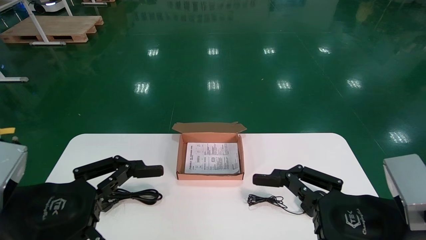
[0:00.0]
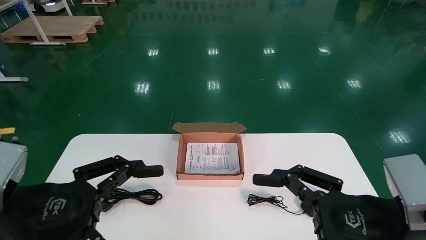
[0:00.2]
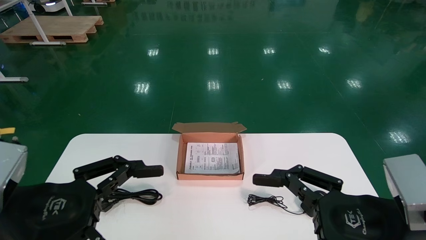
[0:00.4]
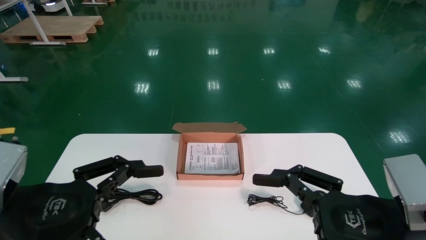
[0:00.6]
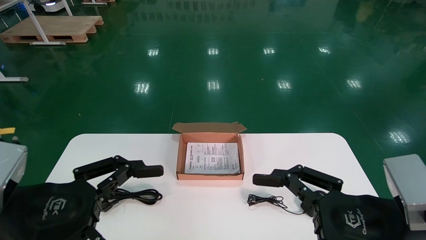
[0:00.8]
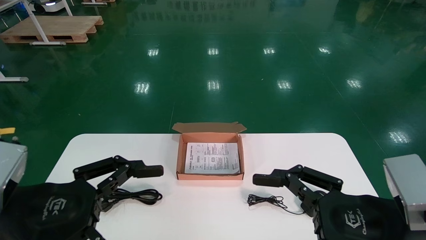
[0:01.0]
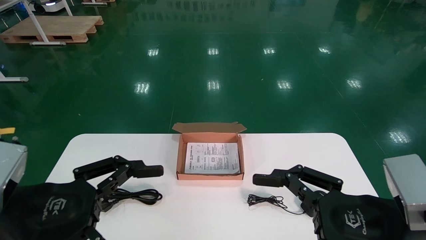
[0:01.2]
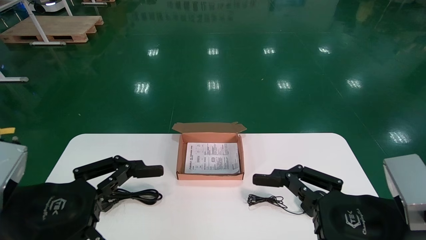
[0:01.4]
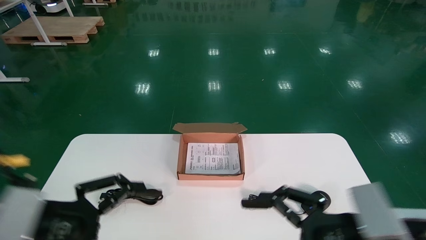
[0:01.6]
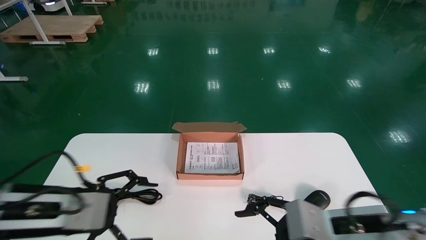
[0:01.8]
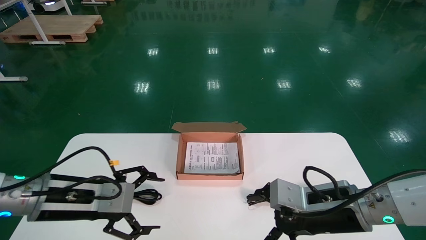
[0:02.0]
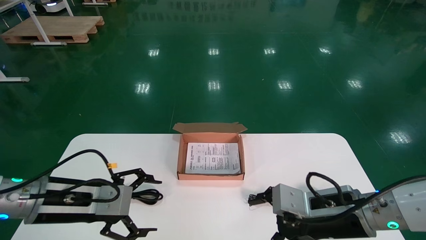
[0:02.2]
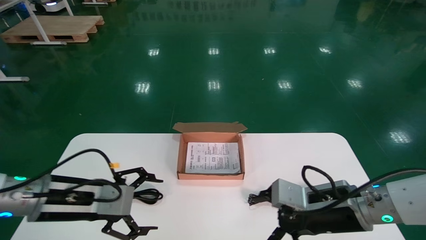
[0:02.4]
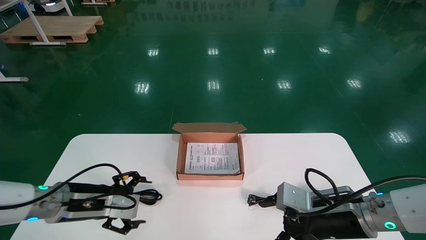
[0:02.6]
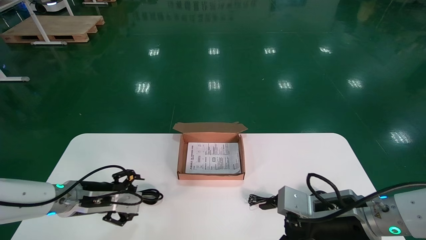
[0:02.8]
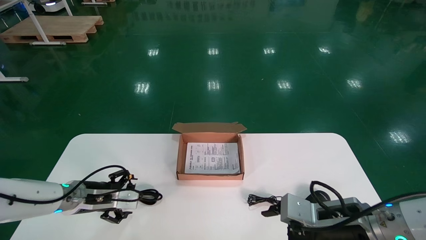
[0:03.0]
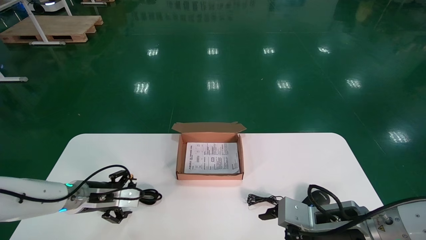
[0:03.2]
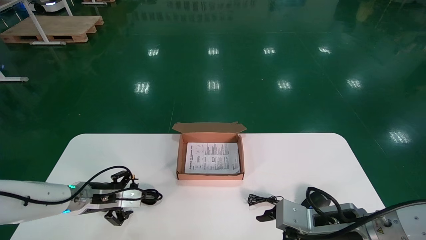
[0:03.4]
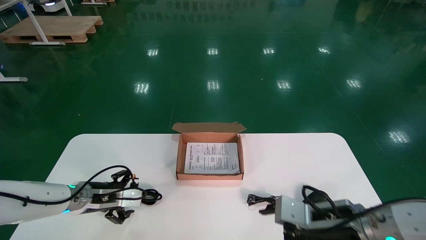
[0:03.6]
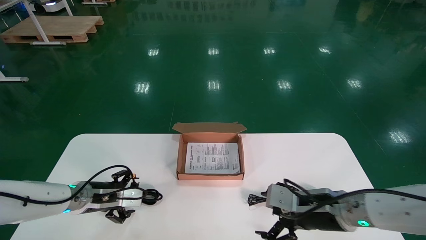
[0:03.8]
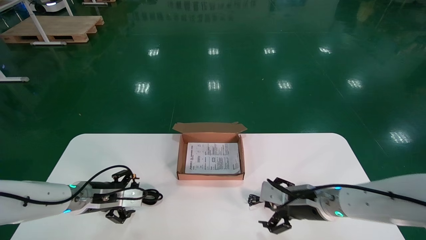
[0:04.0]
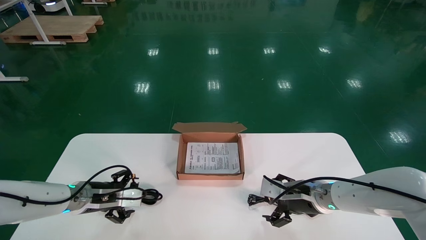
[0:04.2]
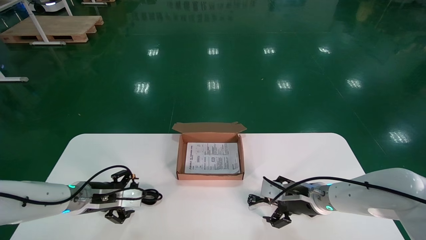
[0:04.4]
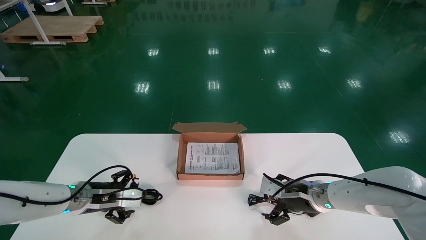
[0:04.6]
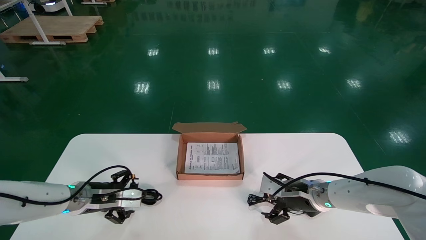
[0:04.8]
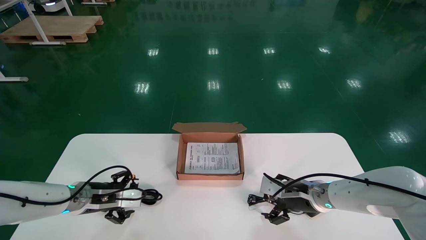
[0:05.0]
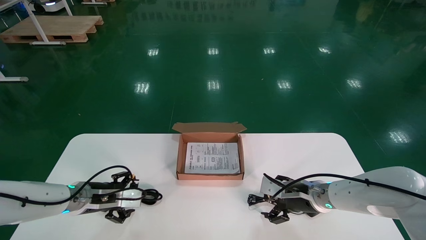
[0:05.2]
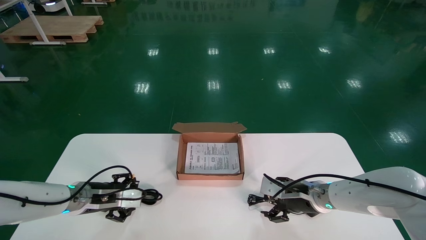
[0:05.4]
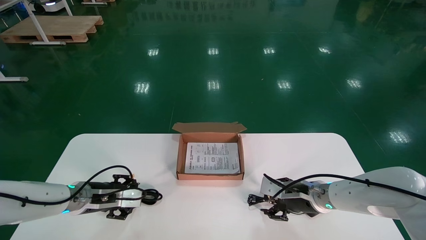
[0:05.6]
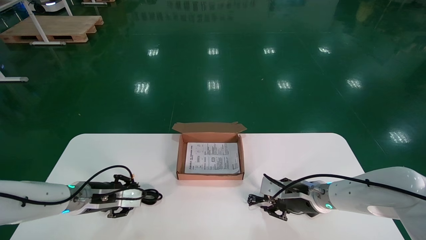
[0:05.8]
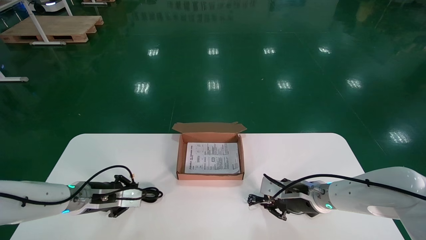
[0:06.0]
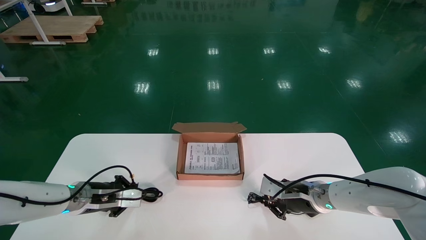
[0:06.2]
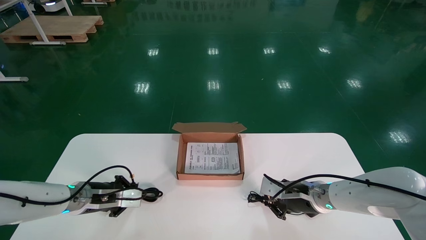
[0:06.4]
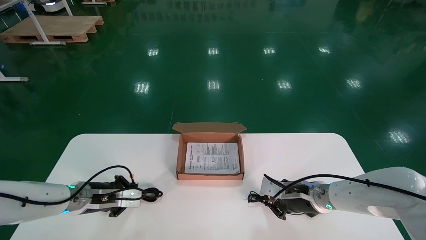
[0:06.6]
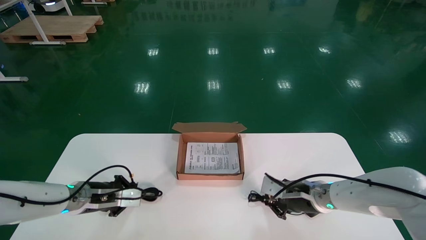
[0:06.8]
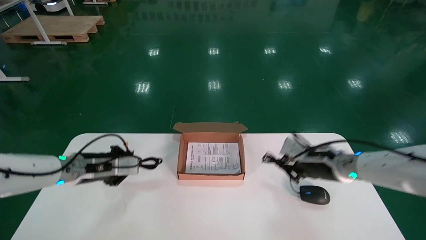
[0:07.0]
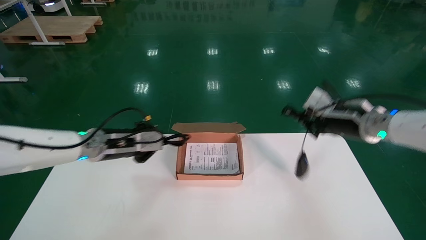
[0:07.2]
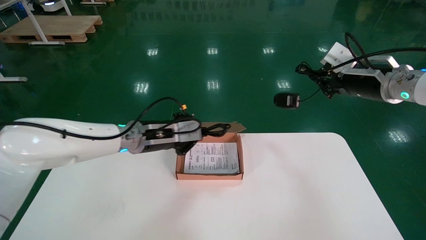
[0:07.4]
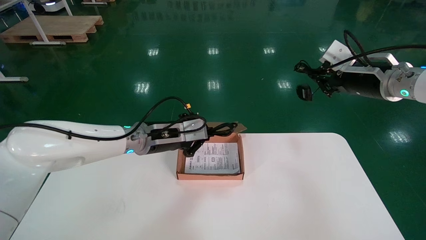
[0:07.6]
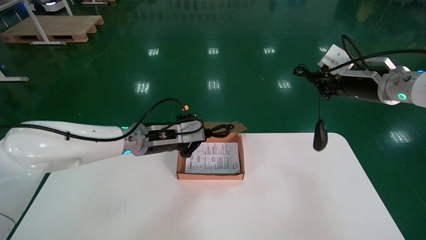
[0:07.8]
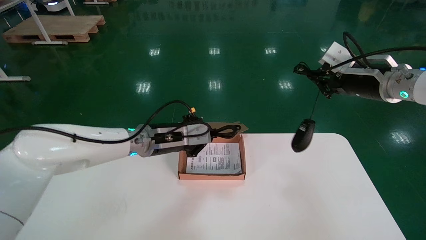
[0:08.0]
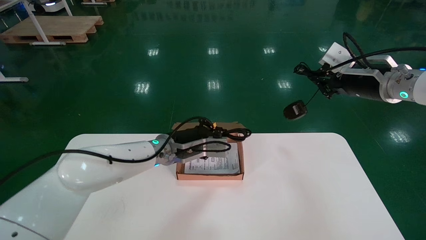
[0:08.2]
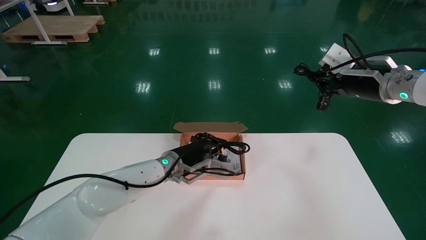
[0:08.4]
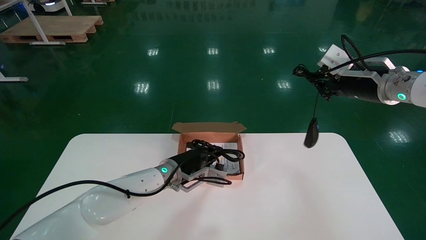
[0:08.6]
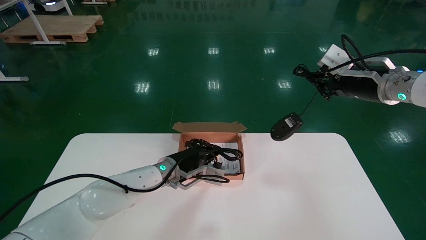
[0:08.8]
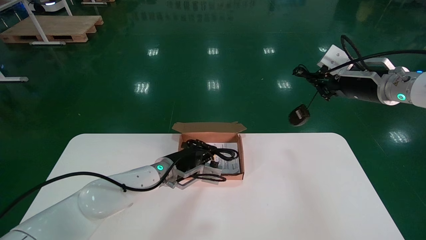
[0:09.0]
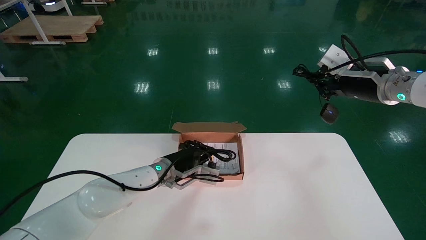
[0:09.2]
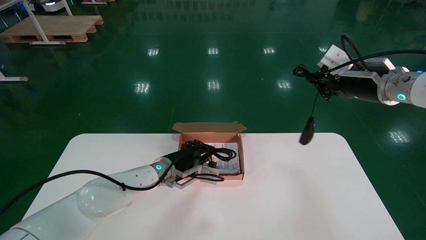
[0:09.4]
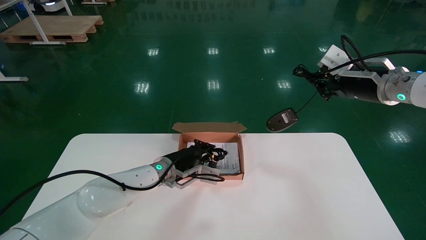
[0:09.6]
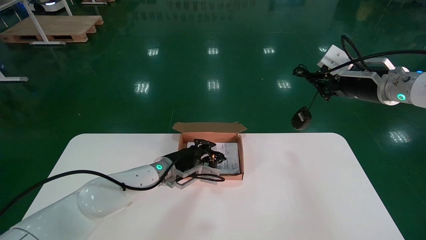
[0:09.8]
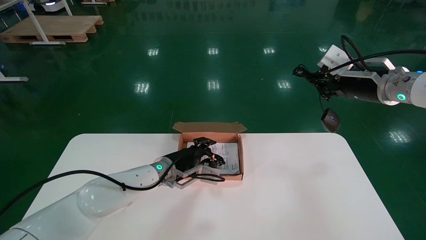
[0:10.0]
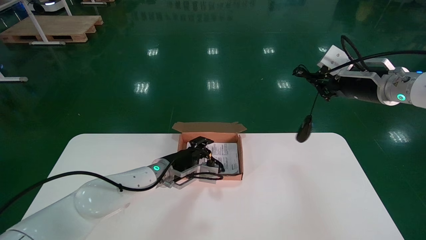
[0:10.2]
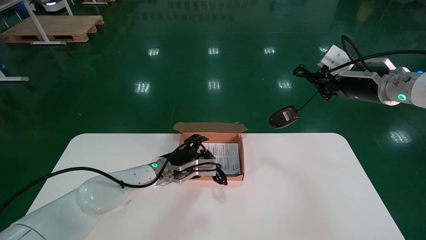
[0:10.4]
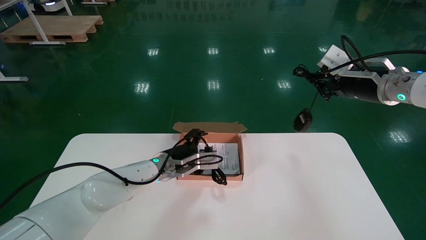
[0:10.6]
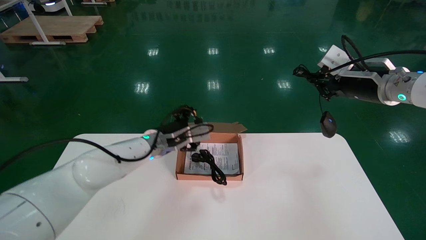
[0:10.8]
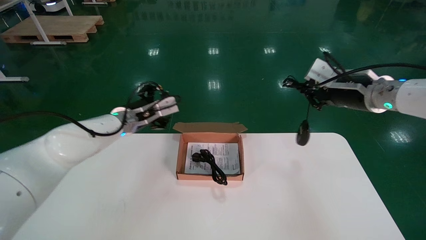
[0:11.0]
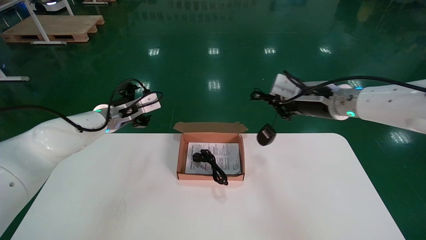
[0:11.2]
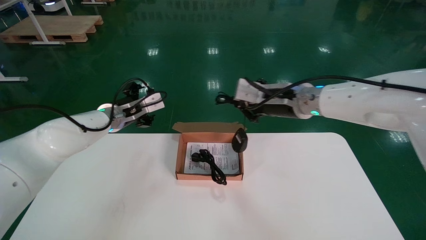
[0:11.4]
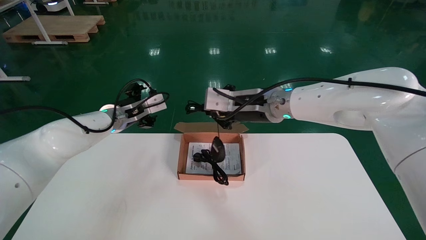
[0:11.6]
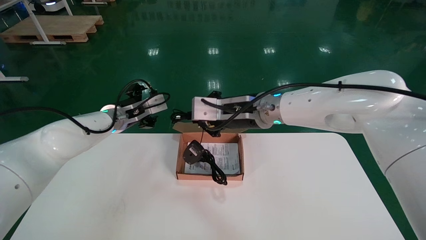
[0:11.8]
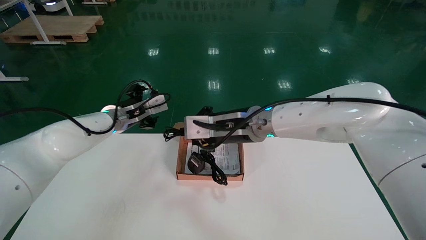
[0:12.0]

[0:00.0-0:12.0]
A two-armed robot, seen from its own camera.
Step, 0:01.8 to 0:06.2: Simultaneously pick up the mouse and power cord from the accessory packaging area.
0:00.0 to 0:01.6: The left gripper moves about 5 cm, while the right gripper changes place by some 5 cm.
0:01.6 to 0:03.0: The right gripper moves forward, about 10 cm. The left gripper heads forward and downward, covering roughly 20 cm.
0:03.0 to 0:04.4: The right gripper goes about 15 cm forward.
0:04.4 to 0:06.0: The right gripper closes up, while the left gripper closes.
0:06.0 to 0:07.6: The left gripper goes some 20 cm to the right and upward. Meanwhile the right gripper travels upward by about 25 cm.
0:07.6 to 0:09.0: The left gripper is displaced downward and to the right by some 10 cm.
0:09.0 to 0:10.4: The left gripper opens.
0:10.4 to 0:12.0: The right gripper shifts roughly 25 cm to the left; the left gripper moves upward and to the left, approximately 15 cm.

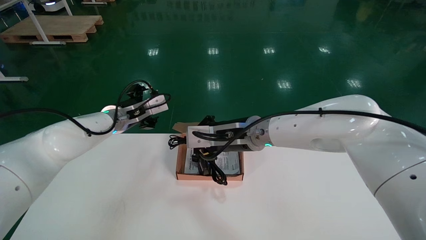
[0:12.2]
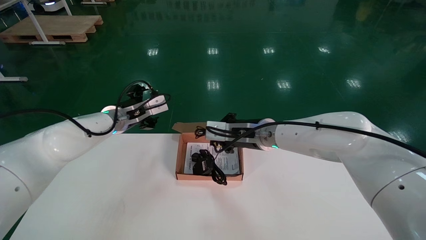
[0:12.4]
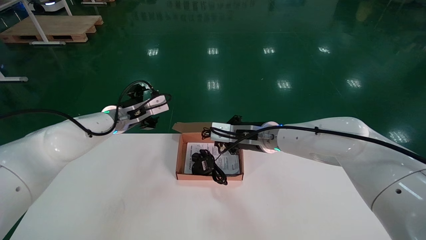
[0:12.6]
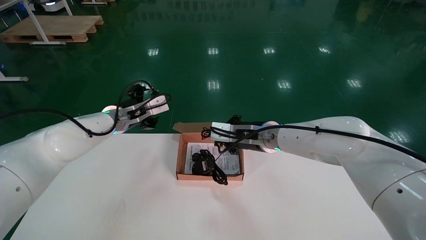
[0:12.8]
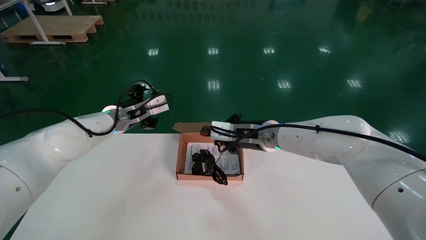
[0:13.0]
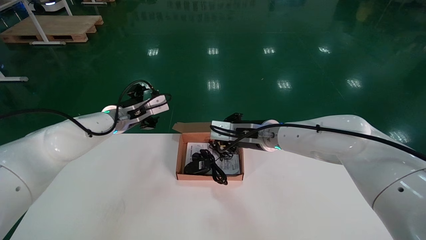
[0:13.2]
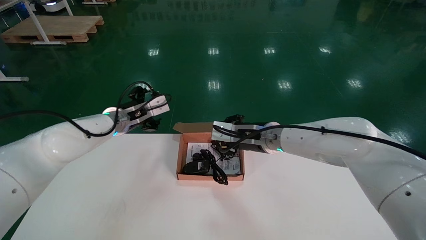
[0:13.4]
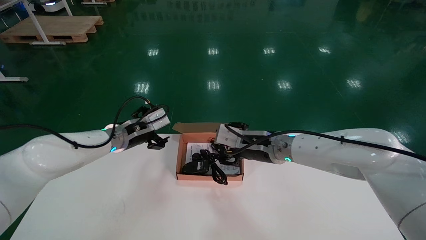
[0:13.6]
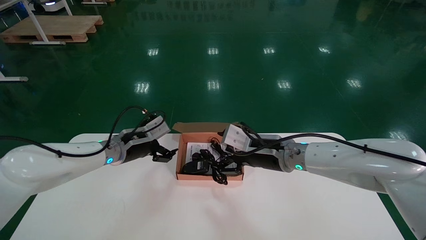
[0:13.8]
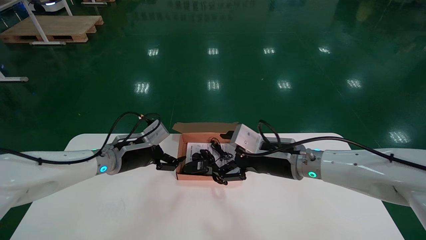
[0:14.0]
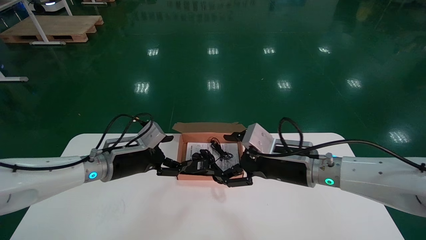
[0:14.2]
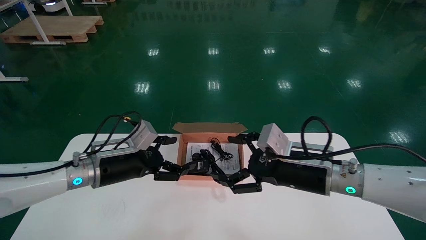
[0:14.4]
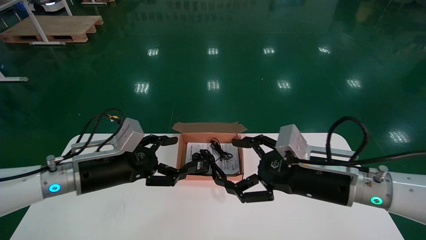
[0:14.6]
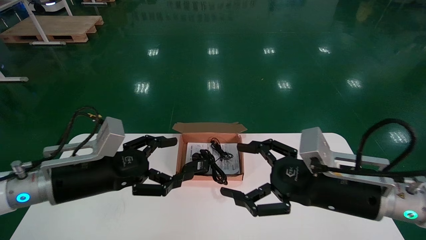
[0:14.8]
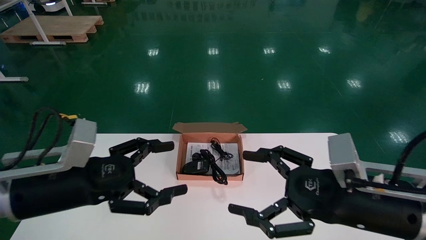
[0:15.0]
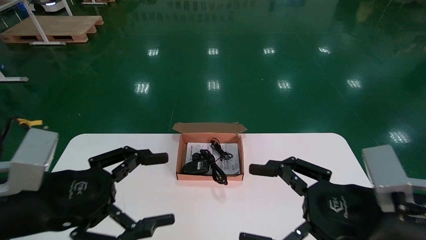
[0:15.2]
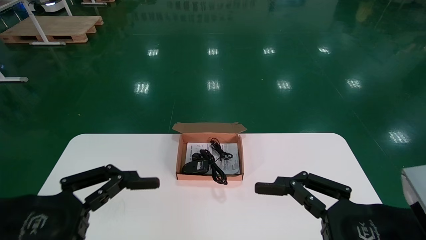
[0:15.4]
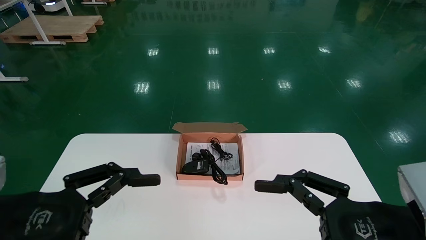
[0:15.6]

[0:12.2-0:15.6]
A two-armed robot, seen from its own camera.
0:12.2 to 0:13.8: The left gripper heads downward, covering some 5 cm, while the right gripper moves to the right and downward, about 10 cm, and opens.
0:13.8 to 0:15.6: The left gripper is displaced backward by about 30 cm; the right gripper travels backward and to the right by about 30 cm, and opens.
